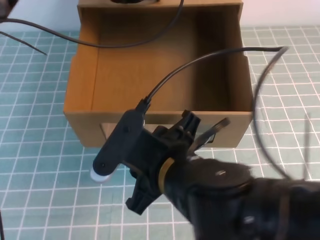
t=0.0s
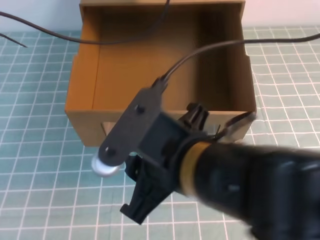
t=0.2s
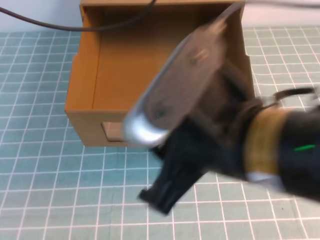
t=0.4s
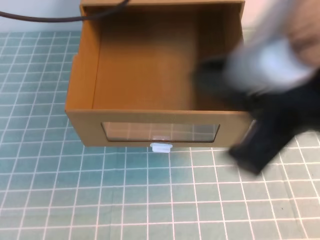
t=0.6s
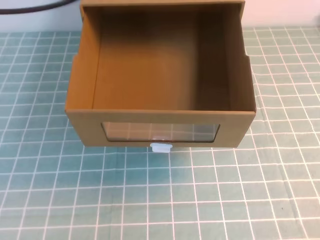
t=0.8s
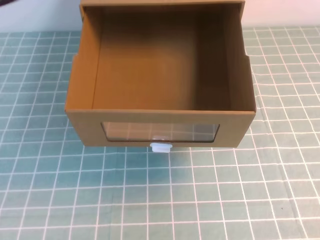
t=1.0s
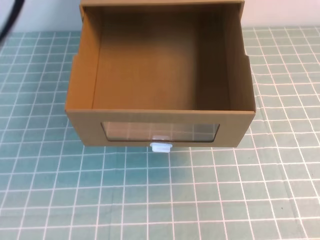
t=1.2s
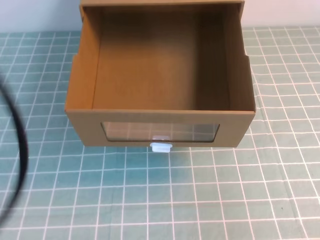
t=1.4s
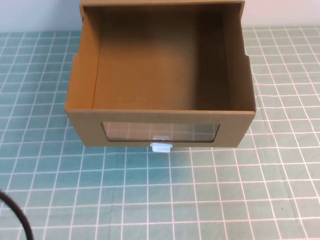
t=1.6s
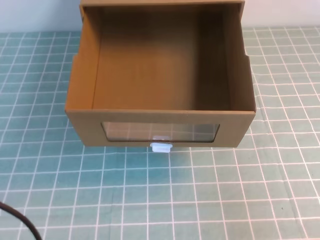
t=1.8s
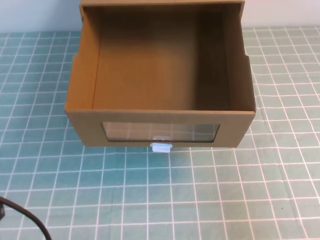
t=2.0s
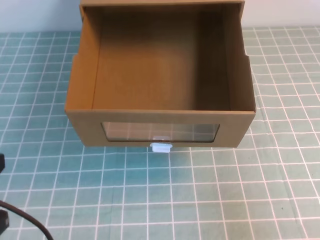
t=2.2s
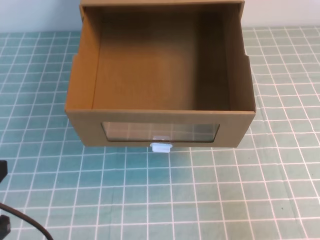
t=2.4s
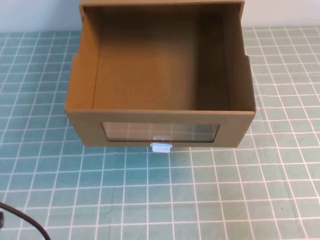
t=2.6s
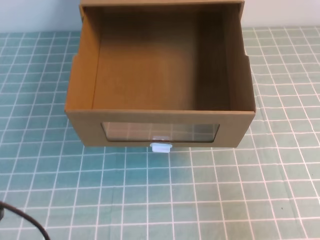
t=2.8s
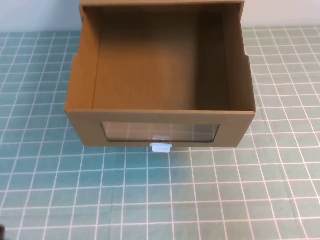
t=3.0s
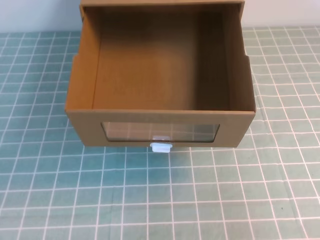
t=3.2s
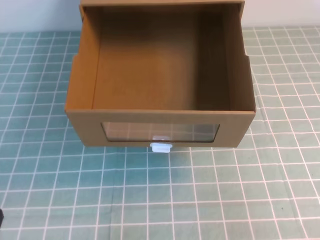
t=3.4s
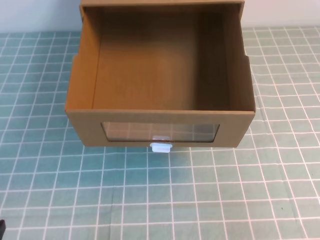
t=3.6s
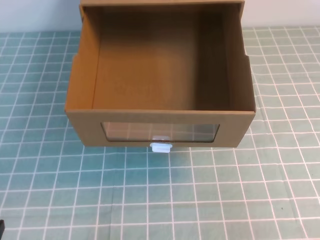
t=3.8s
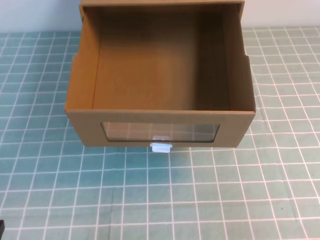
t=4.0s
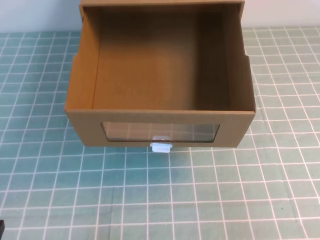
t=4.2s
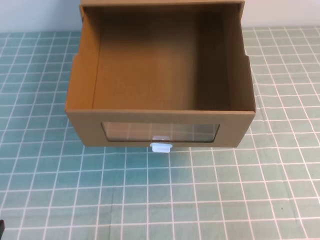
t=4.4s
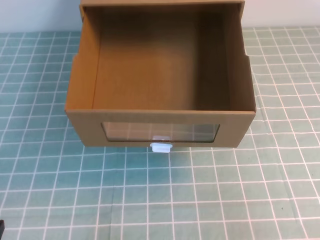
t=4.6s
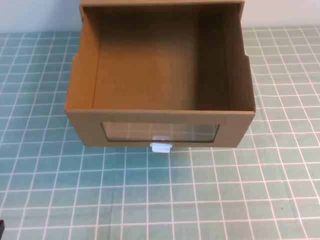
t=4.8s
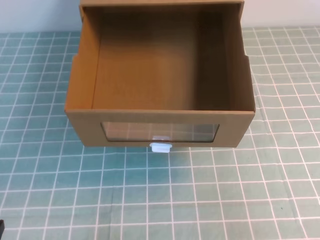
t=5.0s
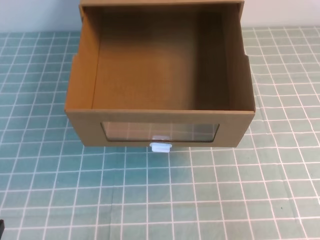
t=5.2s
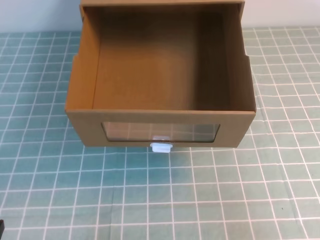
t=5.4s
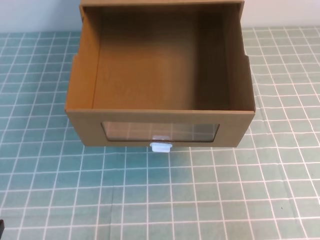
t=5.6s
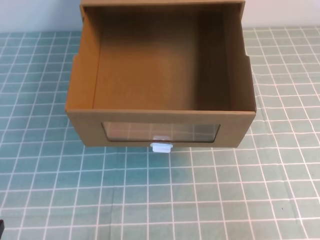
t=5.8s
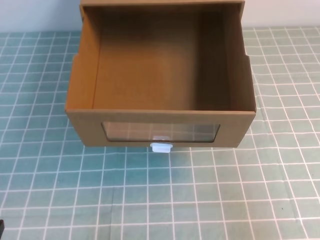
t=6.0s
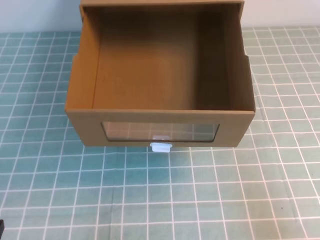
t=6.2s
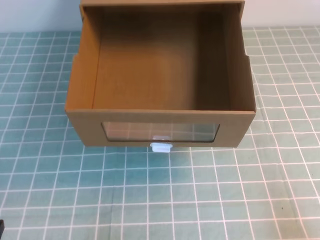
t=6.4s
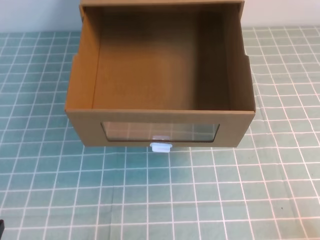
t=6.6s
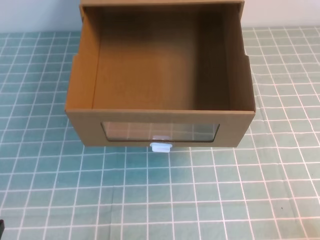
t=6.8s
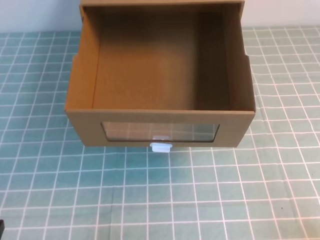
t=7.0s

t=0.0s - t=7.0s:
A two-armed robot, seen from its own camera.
Task of the whole recording: open the shoebox on the cyan tablecloth.
Step, t=0.0s - t=7.0s: Open the shoe box.
t=0.0s - t=1.4s: The right gripper goes roughly 35 cm to the right and upward, and closes; the left gripper moves backward, to the left and upward, roughly 40 cm.
t=1.4s - t=2.8s: The left gripper is displaced downward by about 20 cm, while the right gripper goes some 10 cm downward.
t=2.8s - t=4.2s: The left gripper goes approximately 15 cm downward.
t=5.6s - t=7.0s: The right gripper moves downward, about 15 cm.
